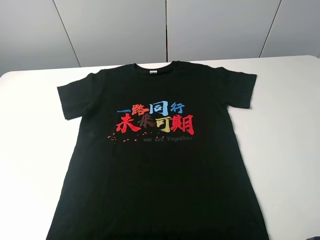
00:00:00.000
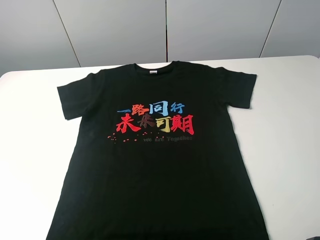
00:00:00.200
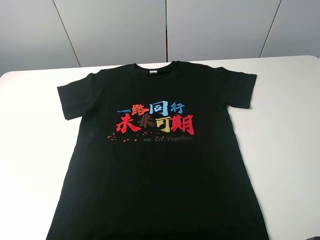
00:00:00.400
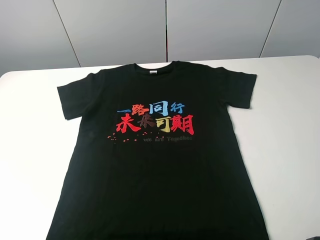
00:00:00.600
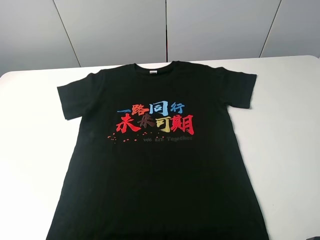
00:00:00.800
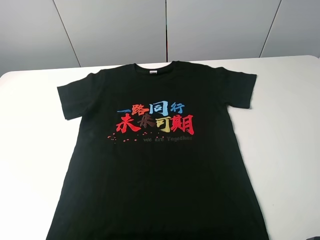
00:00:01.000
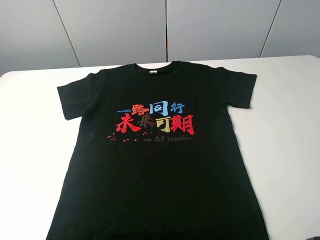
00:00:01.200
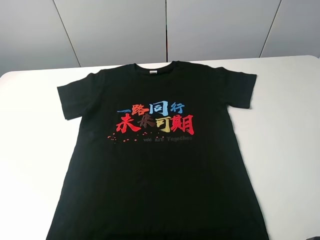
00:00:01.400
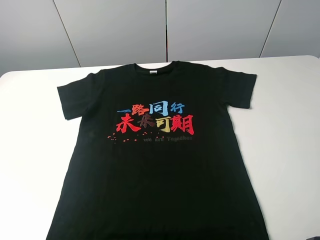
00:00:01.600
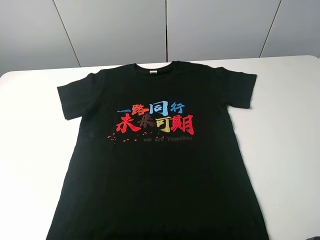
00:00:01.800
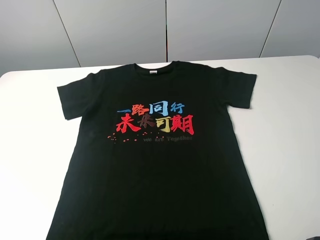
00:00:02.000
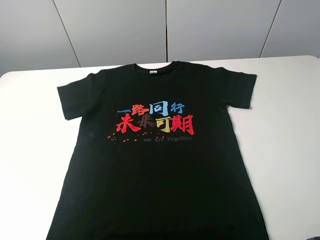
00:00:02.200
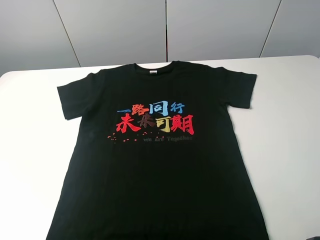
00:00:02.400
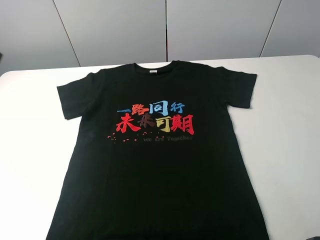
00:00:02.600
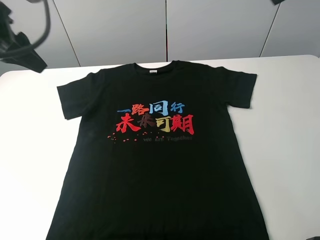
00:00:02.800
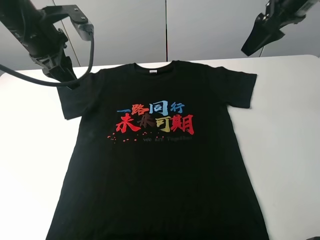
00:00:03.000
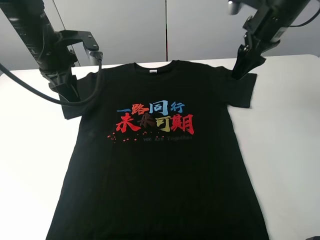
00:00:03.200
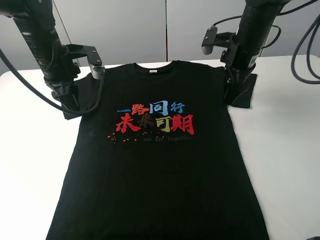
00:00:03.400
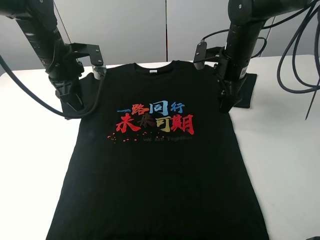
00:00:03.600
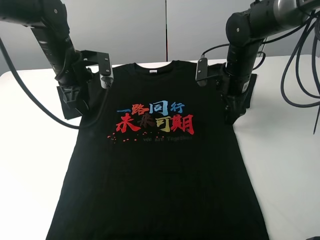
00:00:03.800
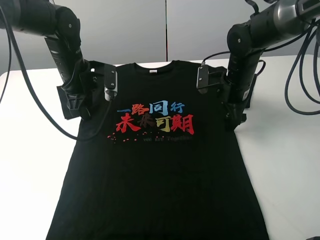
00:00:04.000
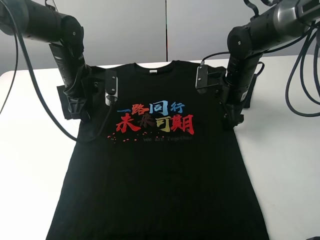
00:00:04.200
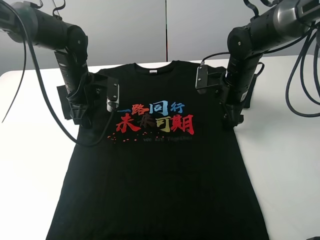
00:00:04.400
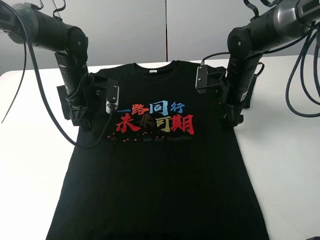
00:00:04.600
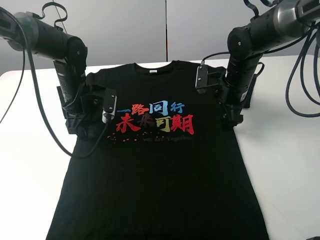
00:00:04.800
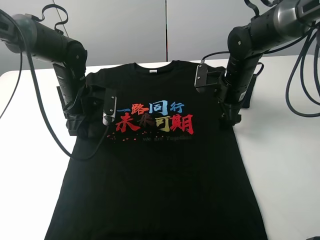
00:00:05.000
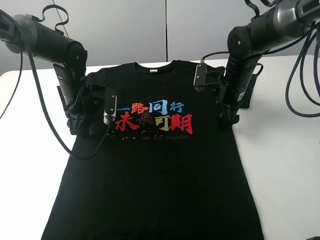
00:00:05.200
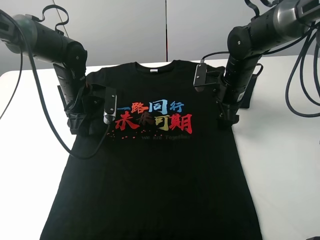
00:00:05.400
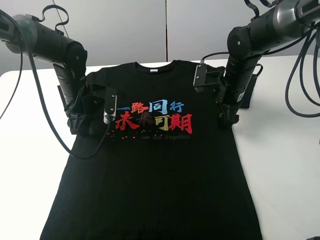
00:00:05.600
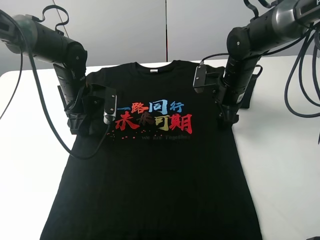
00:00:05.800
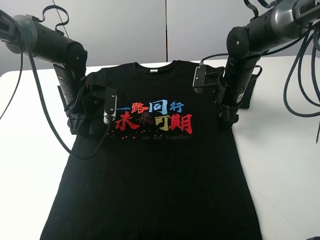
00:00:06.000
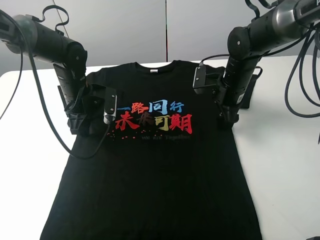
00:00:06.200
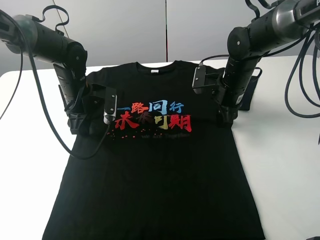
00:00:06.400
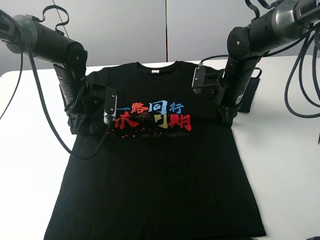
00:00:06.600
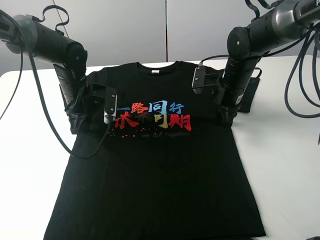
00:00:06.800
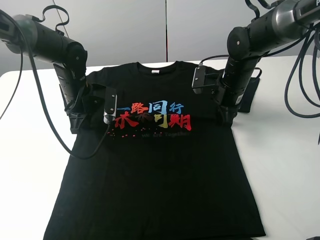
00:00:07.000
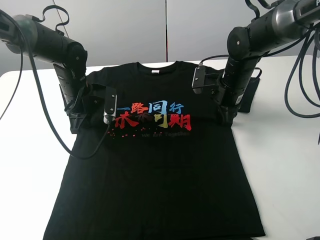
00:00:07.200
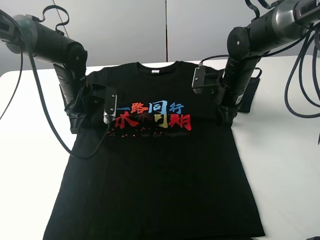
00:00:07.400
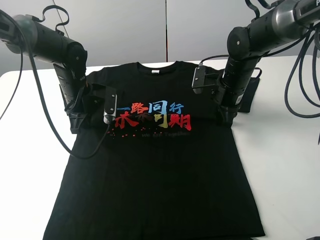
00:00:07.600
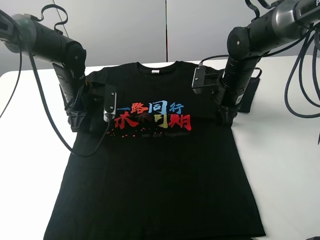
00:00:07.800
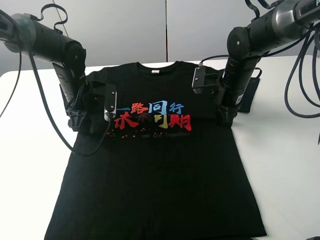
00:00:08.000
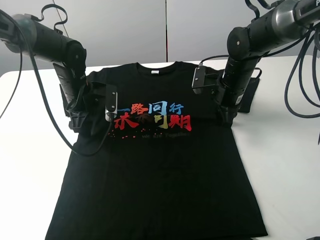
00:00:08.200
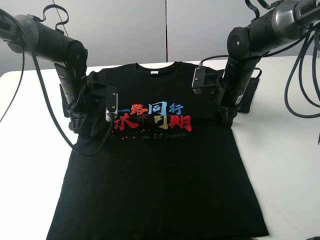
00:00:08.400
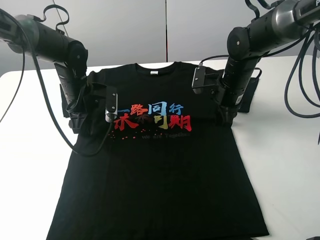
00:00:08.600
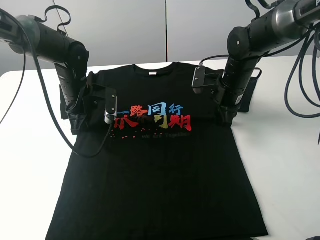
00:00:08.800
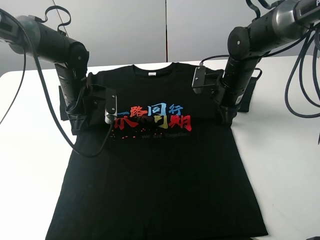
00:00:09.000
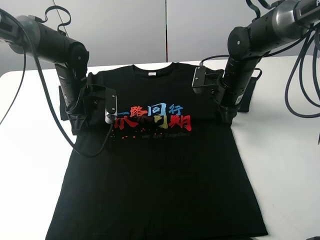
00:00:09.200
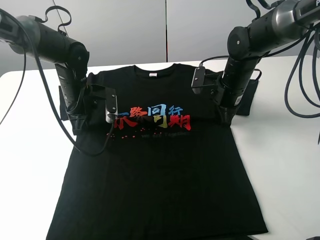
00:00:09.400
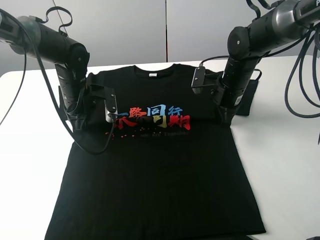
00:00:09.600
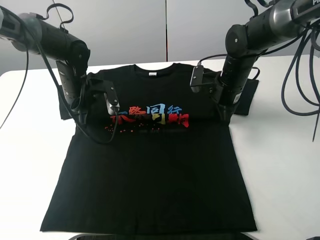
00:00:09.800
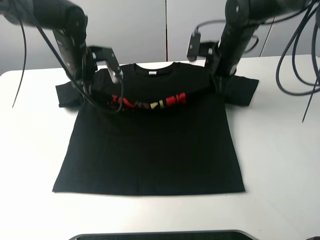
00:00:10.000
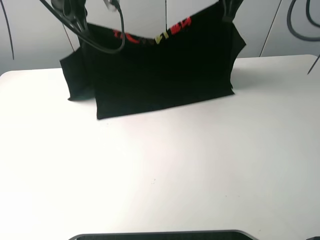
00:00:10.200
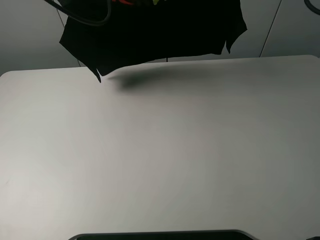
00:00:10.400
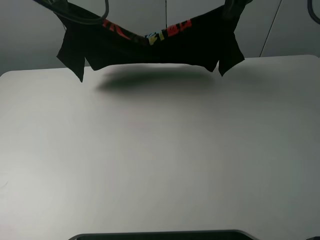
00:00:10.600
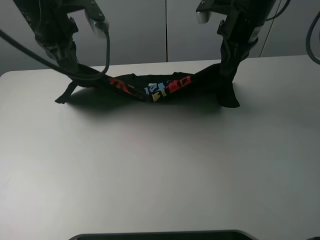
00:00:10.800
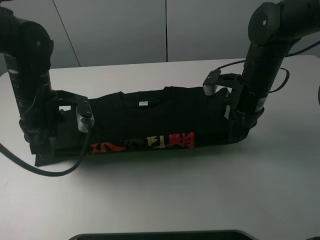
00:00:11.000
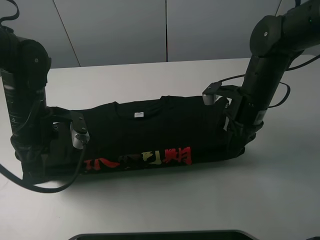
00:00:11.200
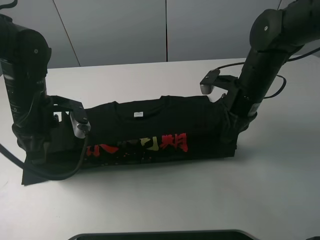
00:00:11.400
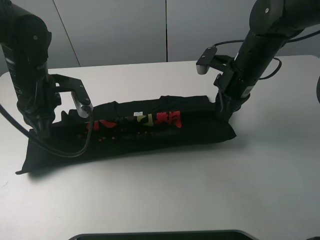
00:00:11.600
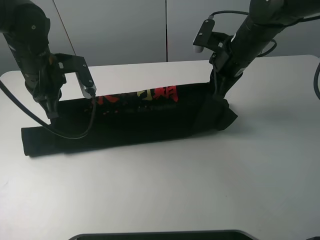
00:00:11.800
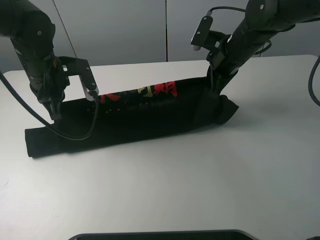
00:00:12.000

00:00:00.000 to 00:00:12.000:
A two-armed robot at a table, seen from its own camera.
Task of the whole recording: fold the clothes on the table.
Step, 00:00:00.000 to 00:00:09.400: Lift the black T-shirt with the left gripper.
00:00:00.000 to 00:00:01.600: Both grippers stay put.
00:00:01.600 to 00:00:03.000: The right gripper goes roughly 35 cm forward, while the left gripper heads forward and to the right, covering roughly 35 cm.
00:00:03.000 to 00:00:04.400: Both grippers travel together downward, about 15 cm.
00:00:04.400 to 00:00:06.000: There are only small adjustments of the grippers.
00:00:06.000 to 00:00:07.600: The right gripper closes up. Meanwhile the left gripper closes its fingers.
00:00:07.600 to 00:00:09.000: The left gripper opens, then closes again.
00:00:09.000 to 00:00:10.400: The grippers both shift upward by approximately 30 cm.
00:00:10.400 to 00:00:12.000: Both grippers move downward, some 20 cm.

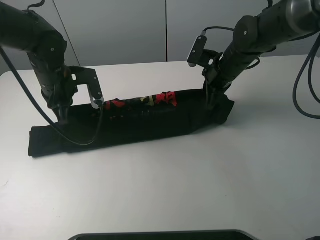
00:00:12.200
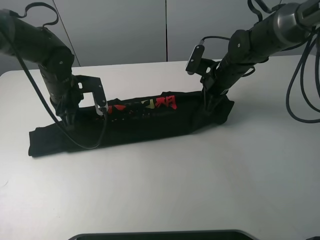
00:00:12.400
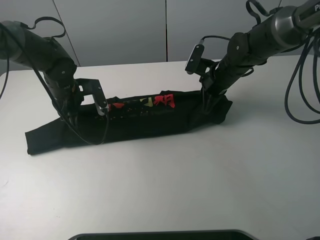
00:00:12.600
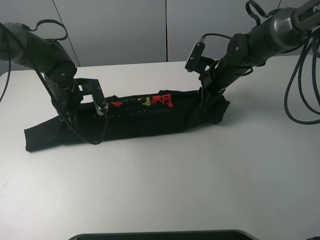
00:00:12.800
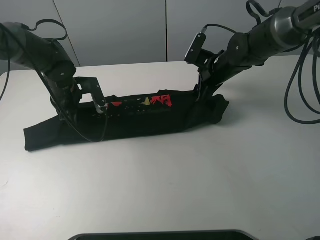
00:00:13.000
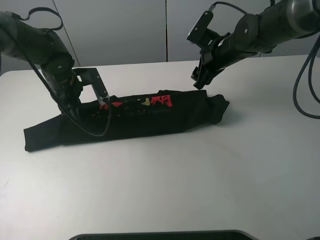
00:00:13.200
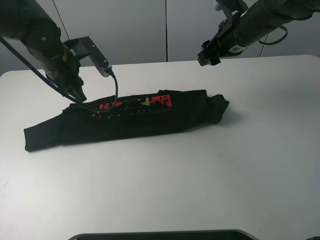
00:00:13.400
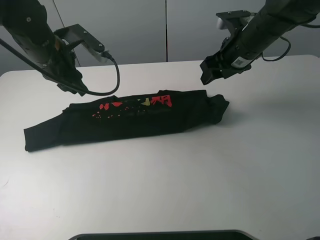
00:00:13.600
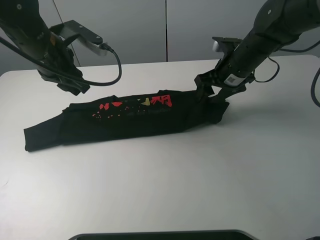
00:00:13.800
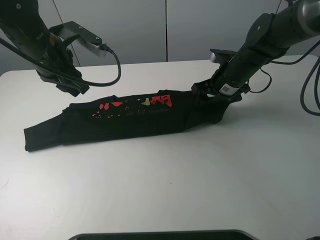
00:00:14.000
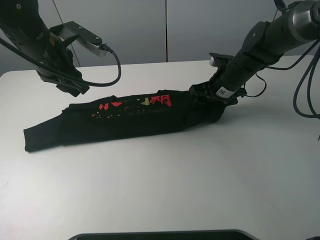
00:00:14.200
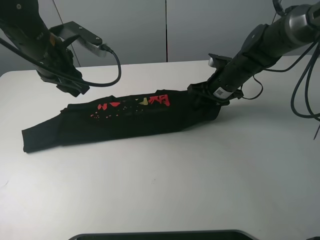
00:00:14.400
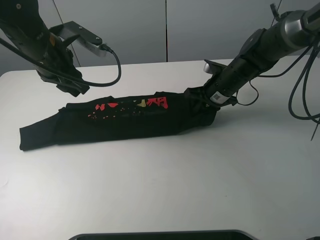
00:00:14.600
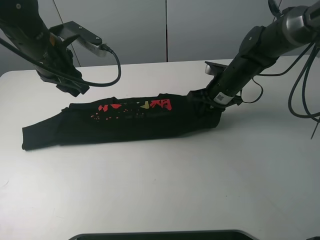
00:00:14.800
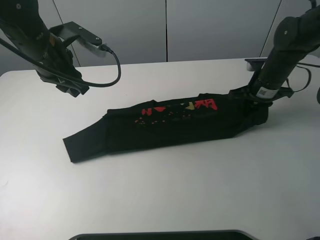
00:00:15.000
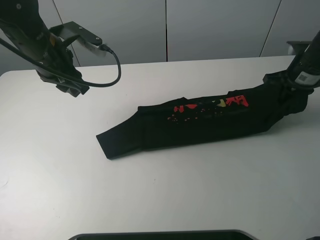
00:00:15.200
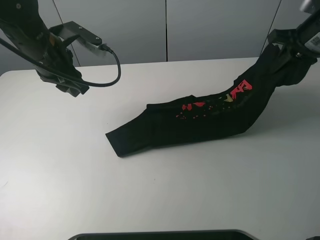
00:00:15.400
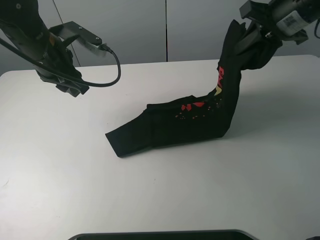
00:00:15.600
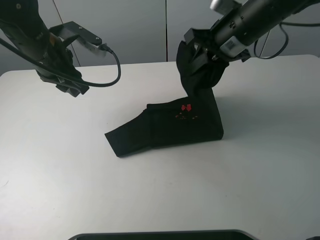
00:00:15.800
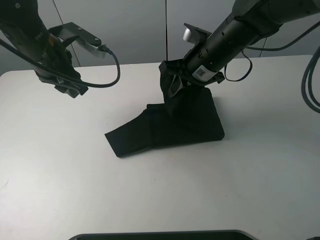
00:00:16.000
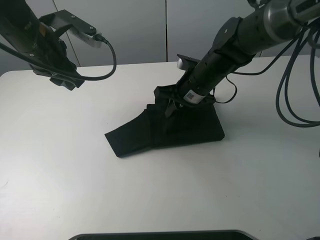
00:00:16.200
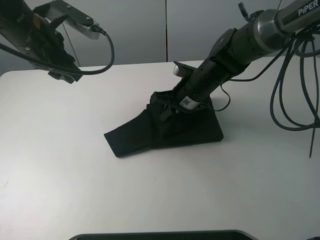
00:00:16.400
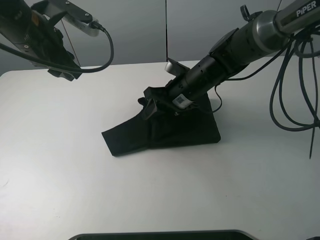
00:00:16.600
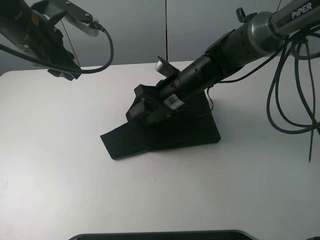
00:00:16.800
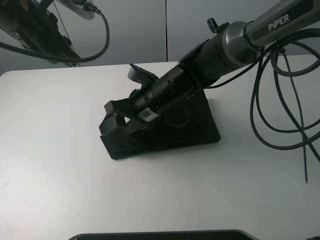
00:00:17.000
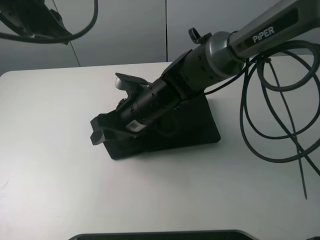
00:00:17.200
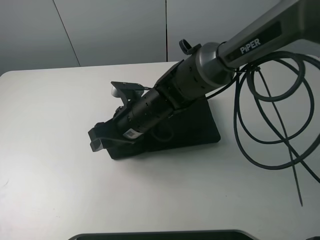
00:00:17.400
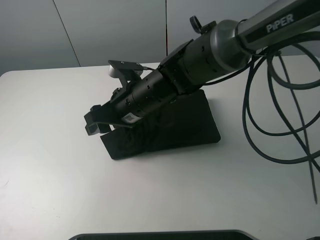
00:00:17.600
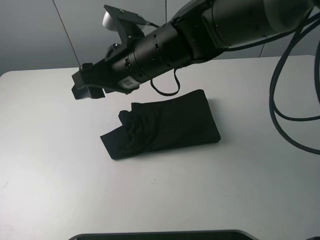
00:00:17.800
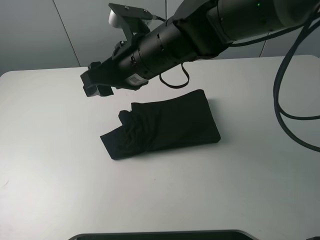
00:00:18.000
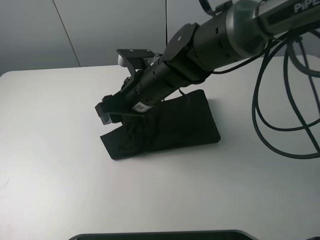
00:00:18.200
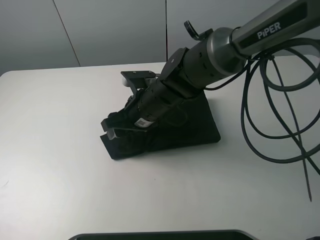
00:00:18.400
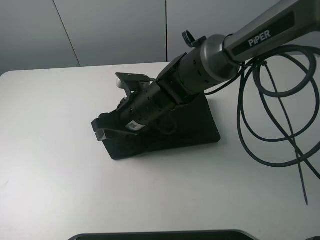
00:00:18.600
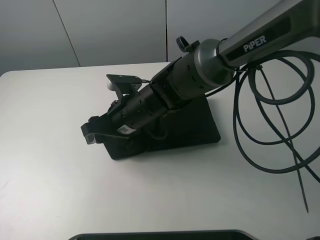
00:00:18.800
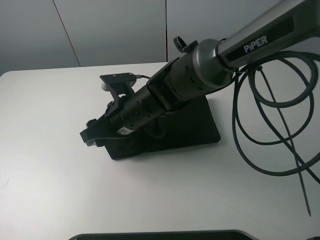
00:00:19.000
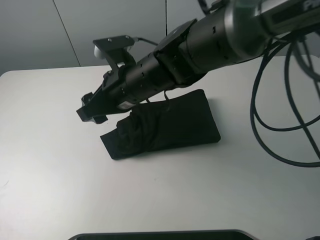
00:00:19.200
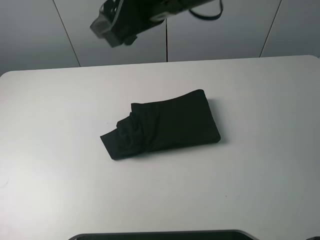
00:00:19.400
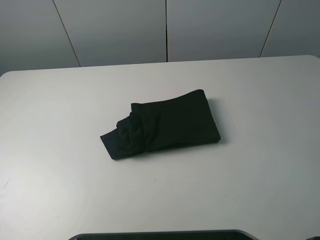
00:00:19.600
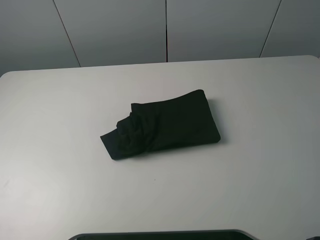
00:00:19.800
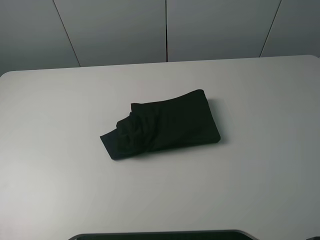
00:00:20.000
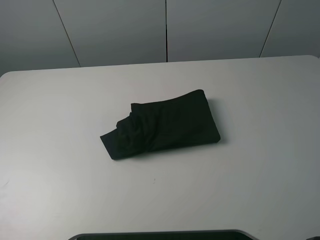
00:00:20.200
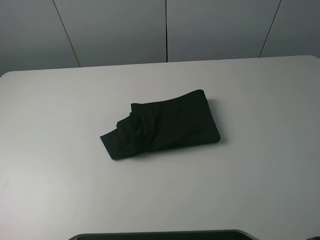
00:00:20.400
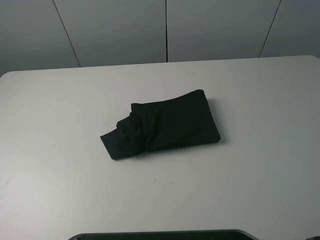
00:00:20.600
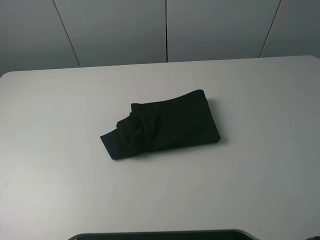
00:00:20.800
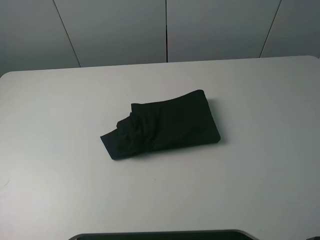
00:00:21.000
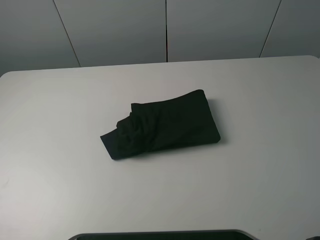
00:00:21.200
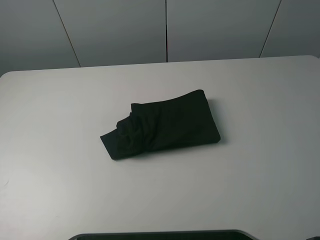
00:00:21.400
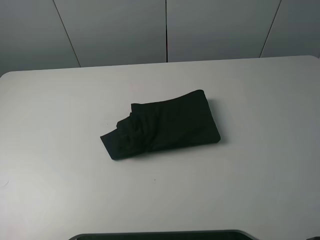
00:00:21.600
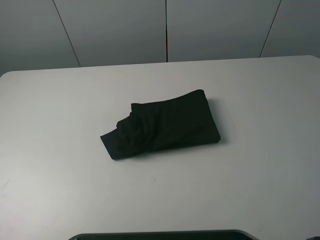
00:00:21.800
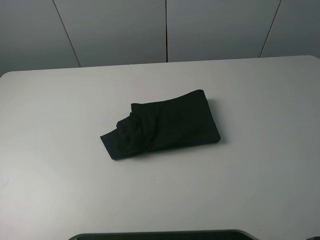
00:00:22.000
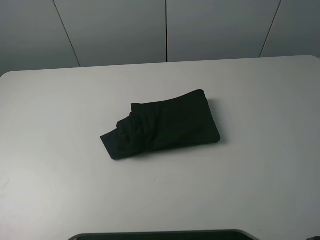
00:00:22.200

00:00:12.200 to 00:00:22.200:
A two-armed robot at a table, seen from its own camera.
Task of the whole recording: fold the clothes on the table.
Step, 00:00:13.400 to 00:00:14.800: Grasp the black T-shirt with the right gripper.
Step, 00:00:15.000 to 00:00:19.200: Fold the black T-shirt from right to left with right gripper.
00:00:12.200 to 00:00:13.600: Both grippers travel together upward, some 5 cm. The left gripper opens; the right gripper opens.
00:00:13.600 to 00:00:15.000: The right gripper shifts about 15 cm to the right and downward, and closes up.
00:00:15.000 to 00:00:16.400: The right gripper shifts some 20 cm to the left.
00:00:16.400 to 00:00:18.000: The left gripper shifts about 25 cm upward and backward; the right gripper travels upward, to the left and backward by some 15 cm, and opens.
00:00:18.000 to 00:00:19.400: The right gripper heads upward and to the right, covering about 15 cm. The left gripper travels backward and to the left by approximately 15 cm.
00:00:19.400 to 00:00:20.800: The left gripper moves backward, to the left and downward, about 15 cm, while the right gripper goes approximately 50 cm backward and to the right.
